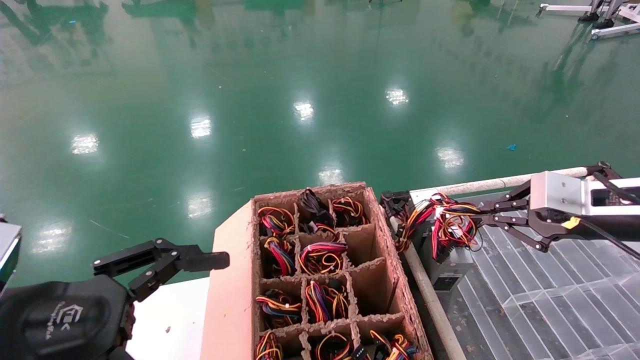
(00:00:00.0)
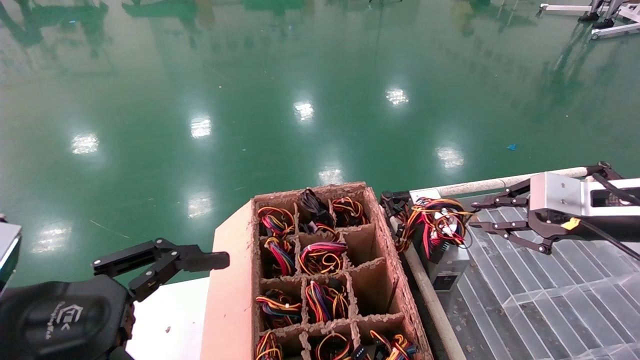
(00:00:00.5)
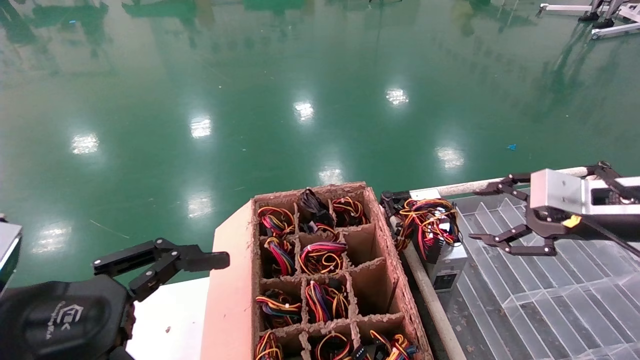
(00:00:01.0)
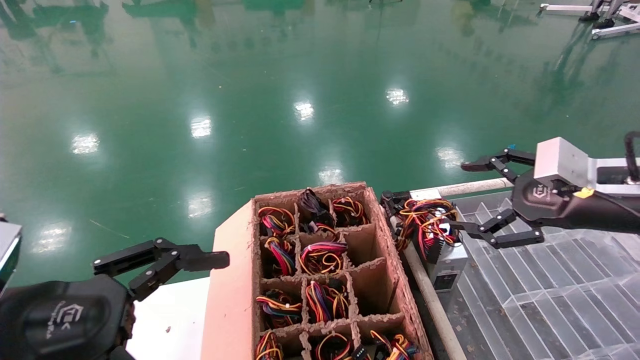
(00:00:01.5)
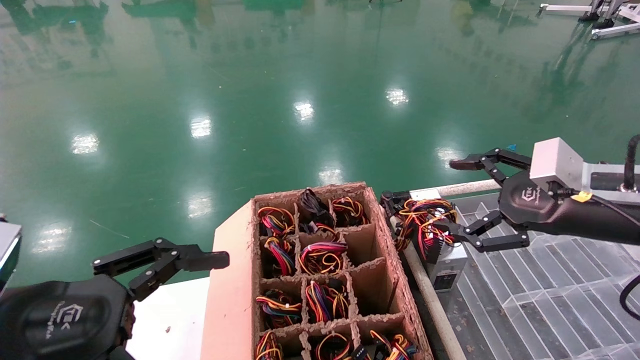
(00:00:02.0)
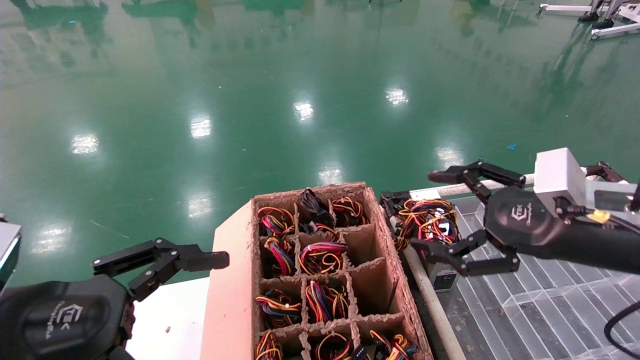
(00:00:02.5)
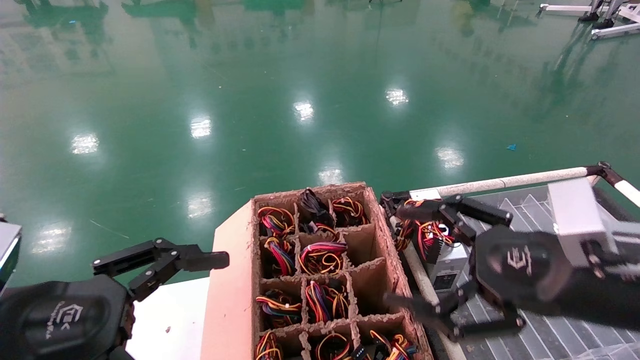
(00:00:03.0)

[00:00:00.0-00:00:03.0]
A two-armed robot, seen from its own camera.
00:00:00.0 to 00:00:01.5: The right gripper opens its fingers.
00:00:01.5 to 00:00:03.0: The right gripper shifts roughly 15 cm to the left and backward.

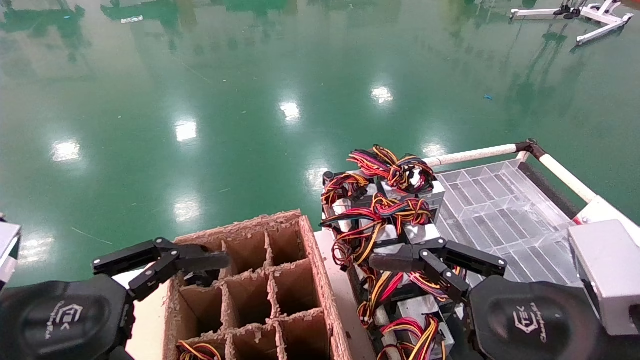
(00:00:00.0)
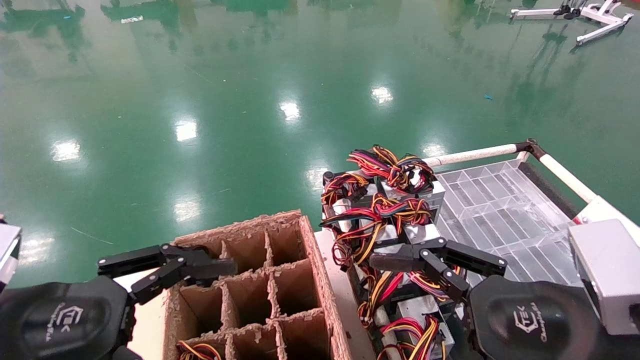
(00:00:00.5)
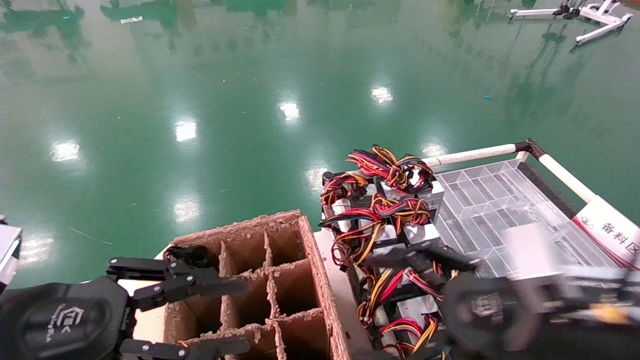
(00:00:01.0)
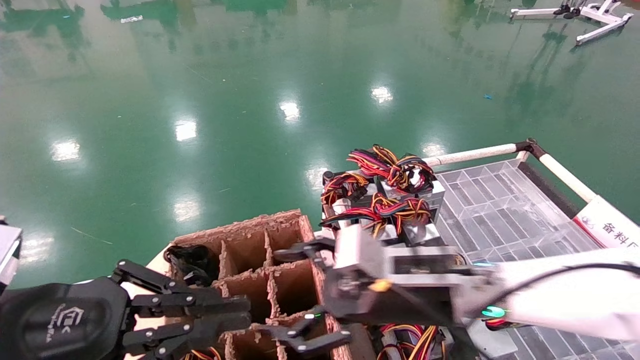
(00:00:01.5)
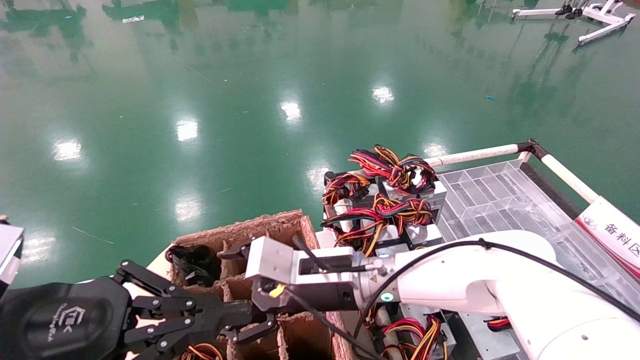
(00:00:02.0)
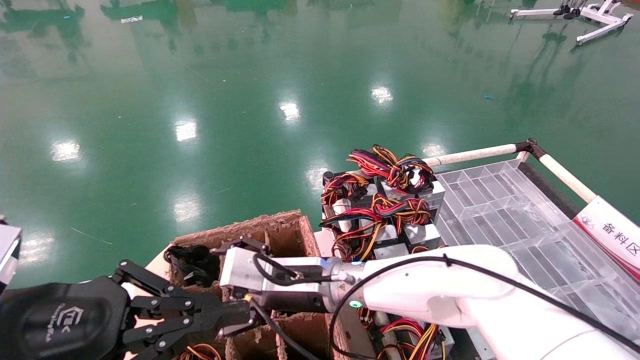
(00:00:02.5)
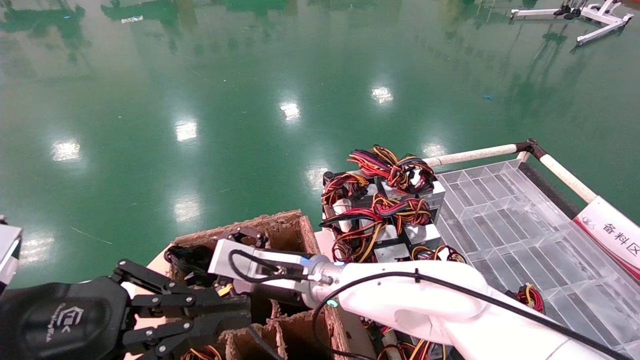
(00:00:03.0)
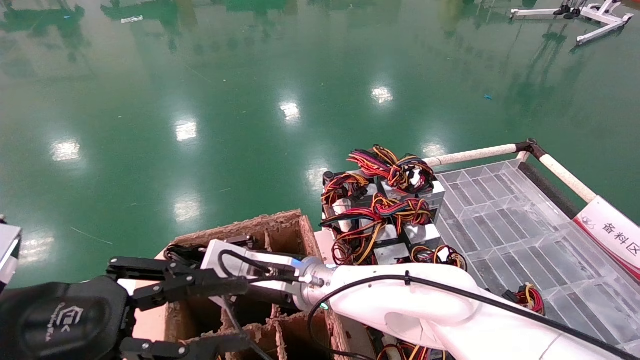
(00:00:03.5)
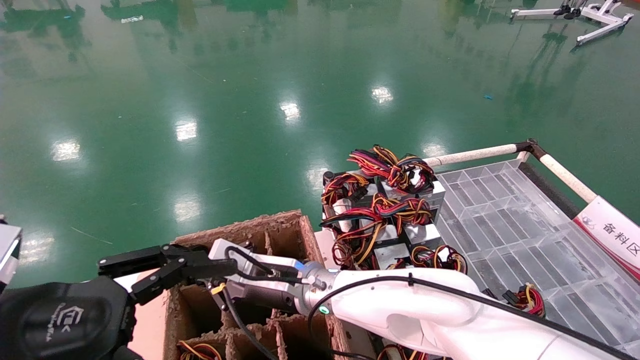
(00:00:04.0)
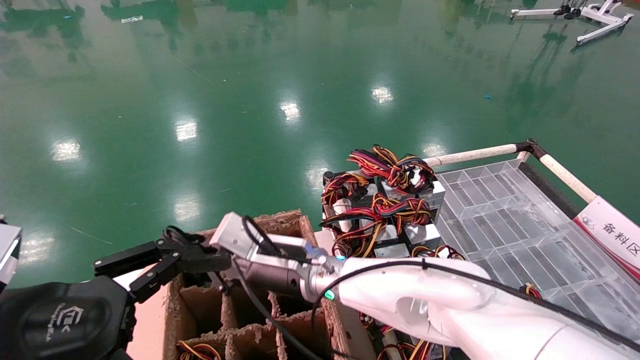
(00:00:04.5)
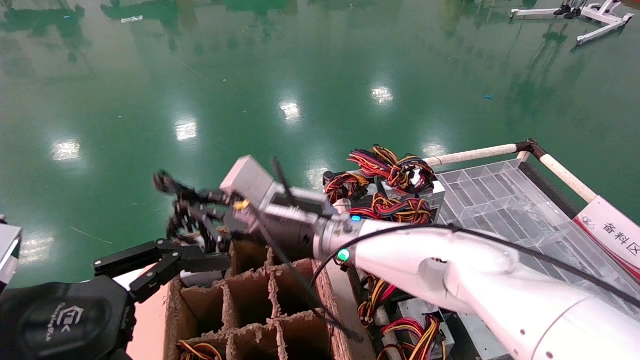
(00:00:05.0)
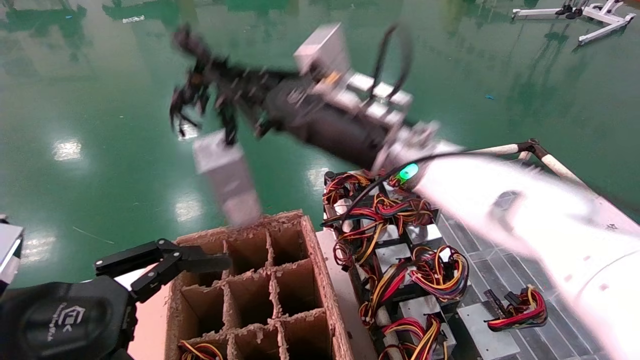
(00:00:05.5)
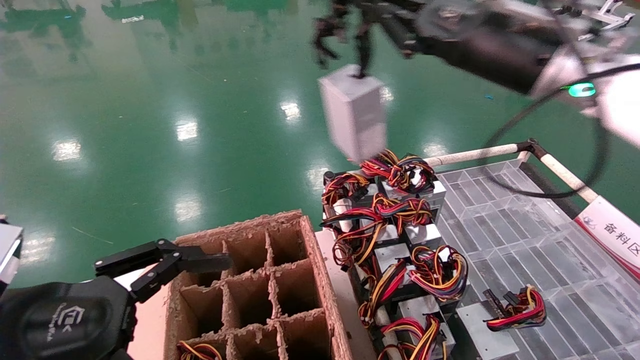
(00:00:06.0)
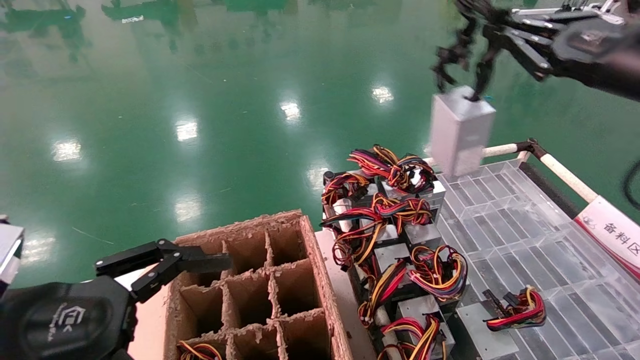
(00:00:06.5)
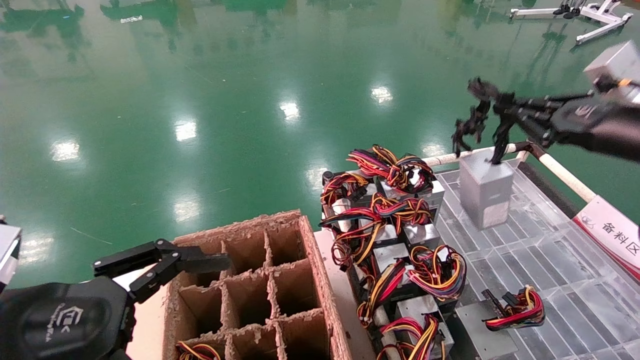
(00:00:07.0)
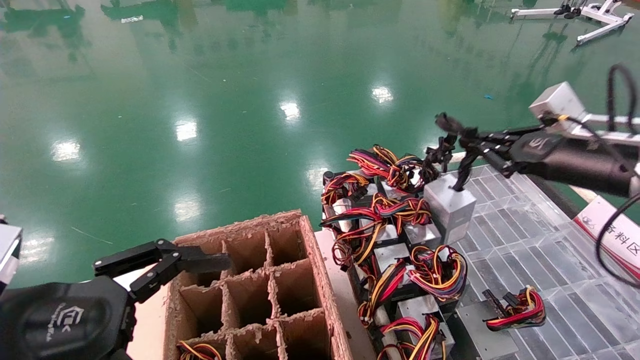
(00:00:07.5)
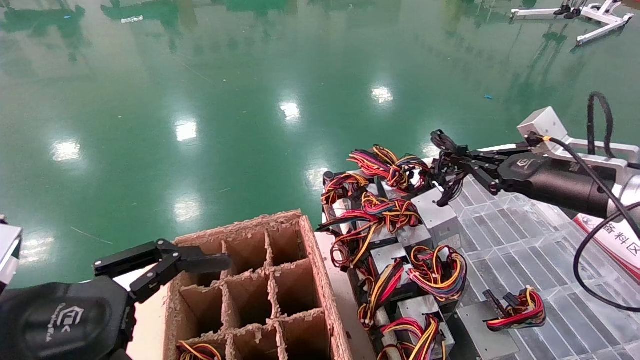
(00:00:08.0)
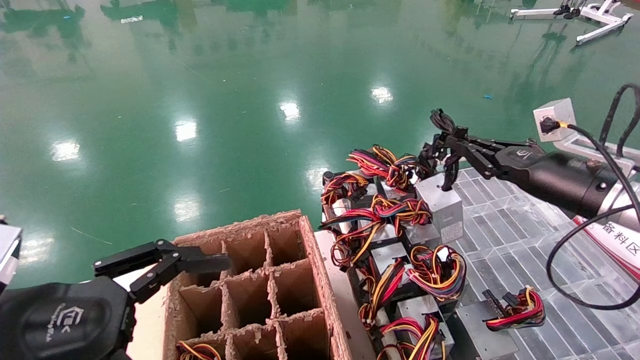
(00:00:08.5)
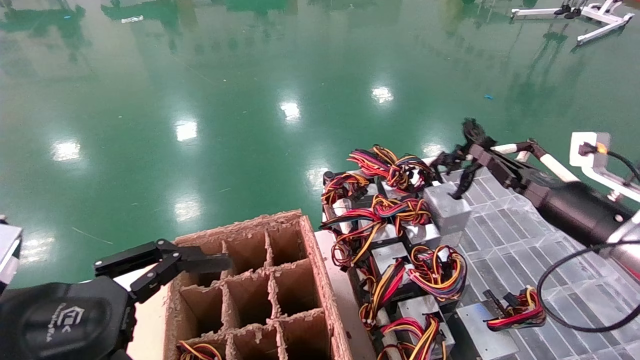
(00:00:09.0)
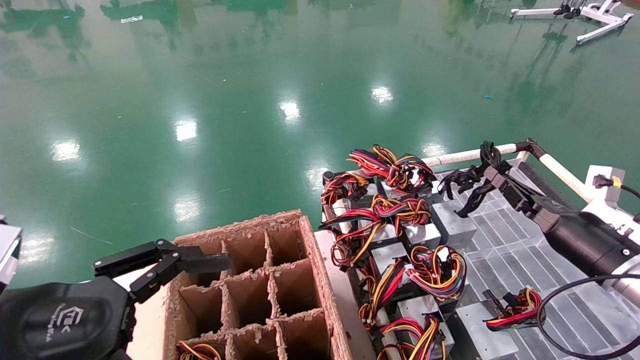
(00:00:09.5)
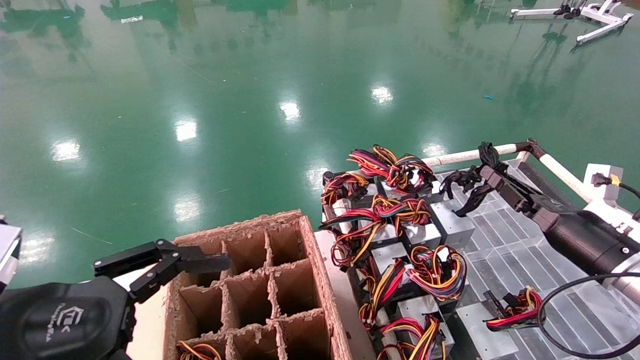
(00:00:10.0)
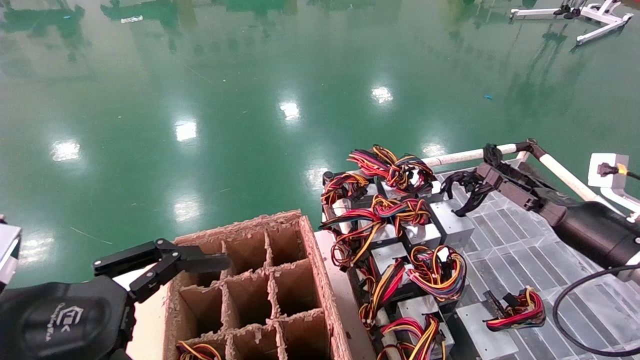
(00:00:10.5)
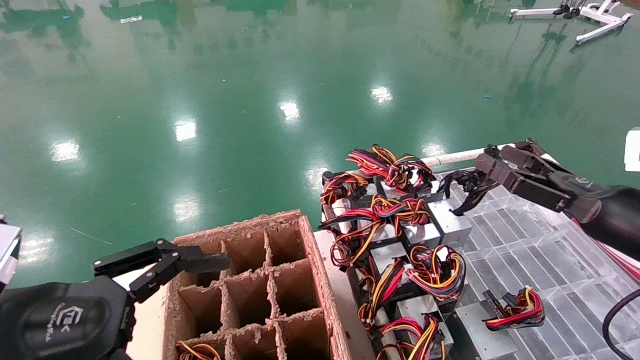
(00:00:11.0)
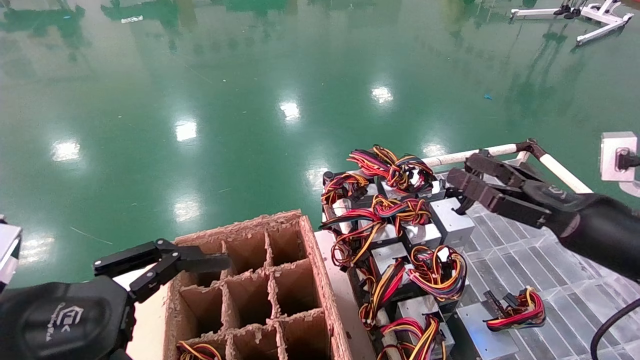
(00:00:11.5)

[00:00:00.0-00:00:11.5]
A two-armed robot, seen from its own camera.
Step, 00:00:01.0 to 00:00:03.5: Grab and lift the power supply from the large box.
Step, 00:00:04.0 to 00:00:10.0: Place the power supply on the operating table.
00:00:00.0 to 00:00:02.0: The right gripper shifts about 30 cm to the left and forward, while the left gripper closes its fingers.
00:00:02.0 to 00:00:04.0: The right gripper goes approximately 5 cm to the left, and closes. Meanwhile the left gripper opens its fingers.
00:00:04.0 to 00:00:06.0: The right gripper shifts some 40 cm upward and to the right.
00:00:06.0 to 00:00:07.5: The right gripper moves to the right and downward, roughly 20 cm.
00:00:07.5 to 00:00:09.5: The right gripper travels downward by about 15 cm.
00:00:09.5 to 00:00:11.5: The right gripper is displaced backward and upward by about 10 cm, and opens.
